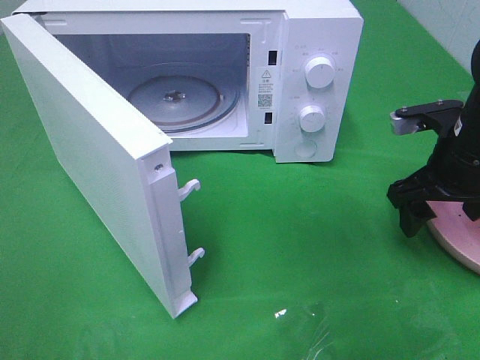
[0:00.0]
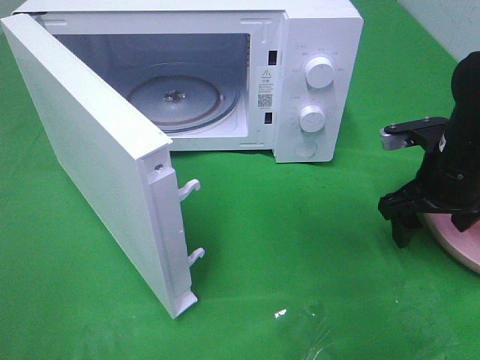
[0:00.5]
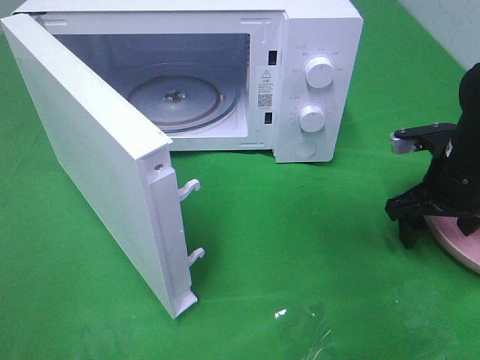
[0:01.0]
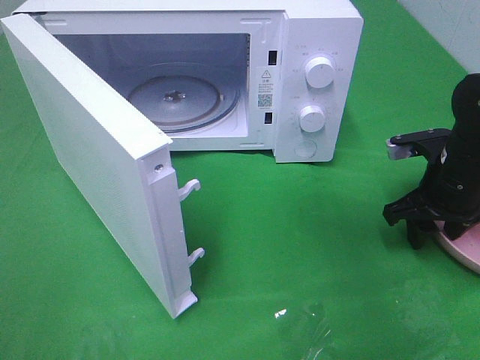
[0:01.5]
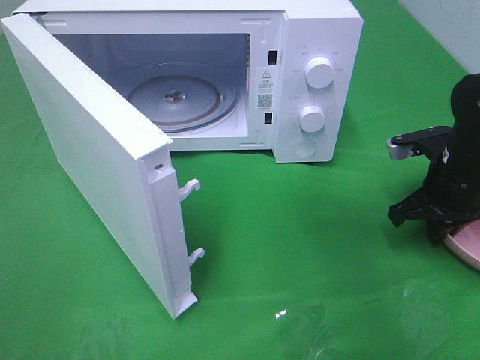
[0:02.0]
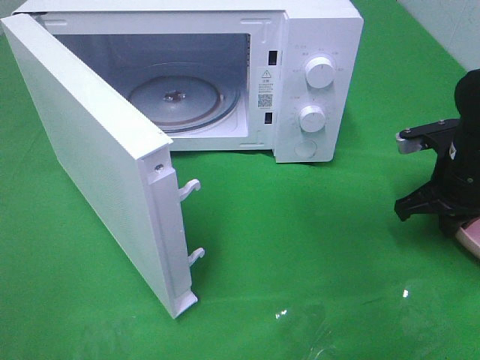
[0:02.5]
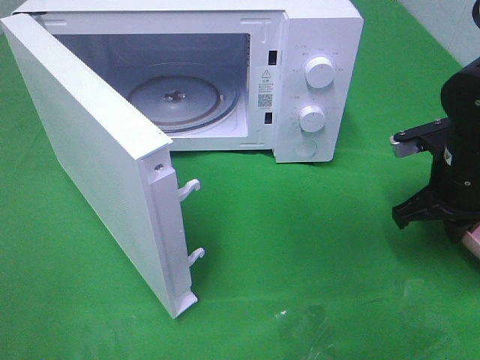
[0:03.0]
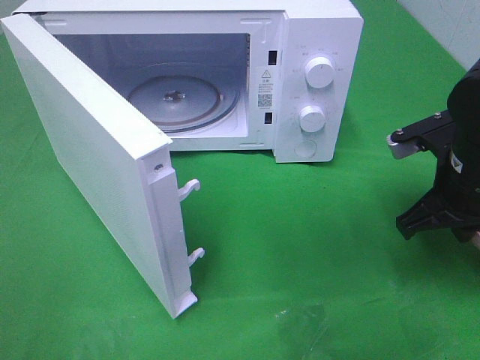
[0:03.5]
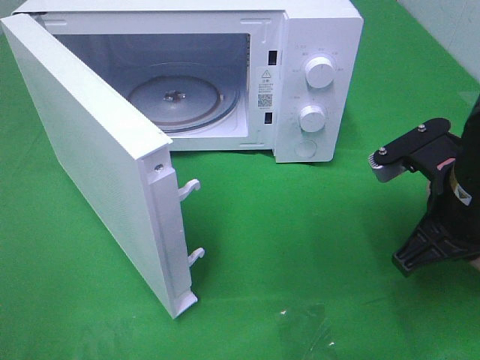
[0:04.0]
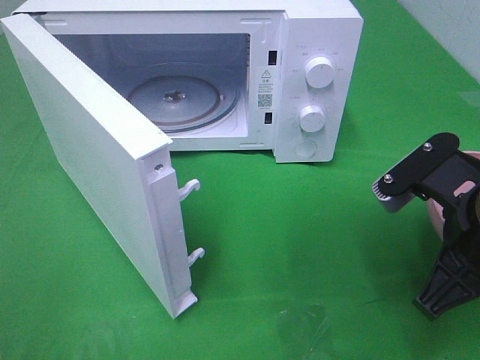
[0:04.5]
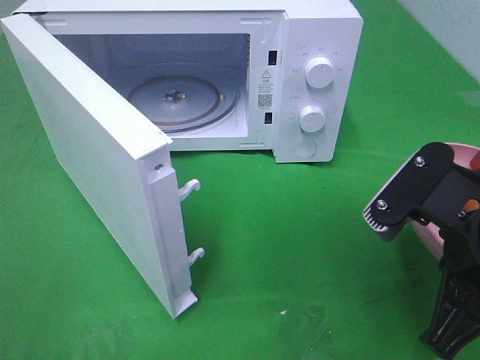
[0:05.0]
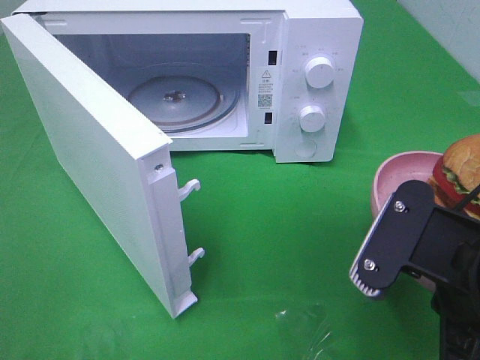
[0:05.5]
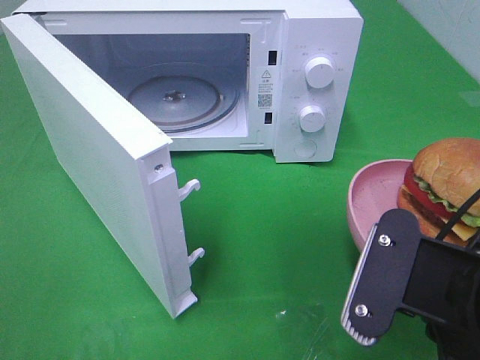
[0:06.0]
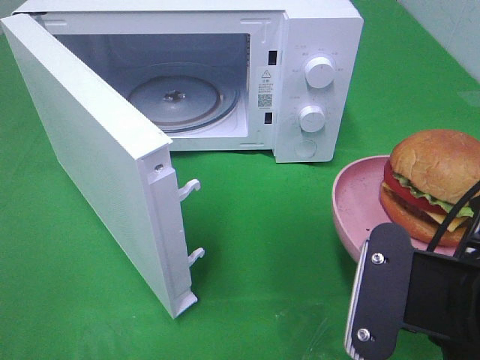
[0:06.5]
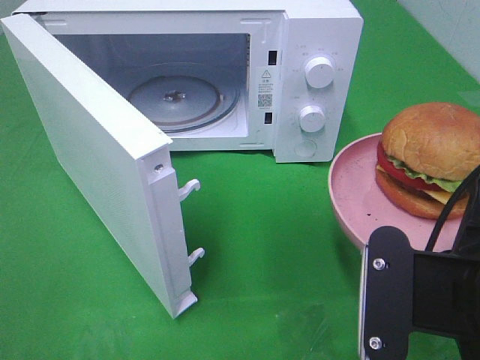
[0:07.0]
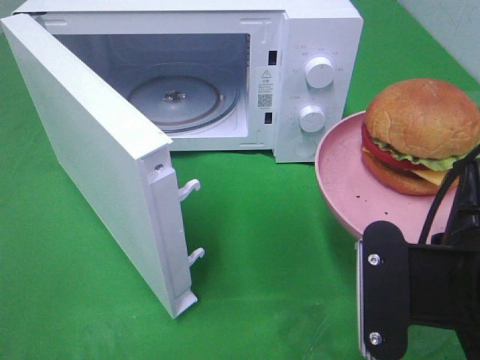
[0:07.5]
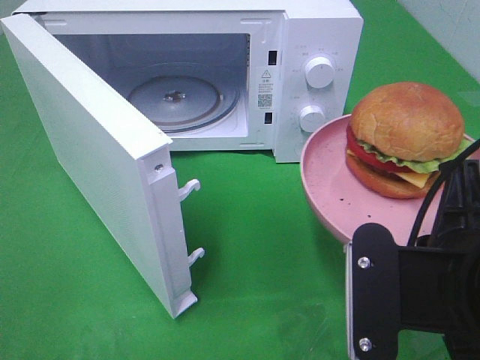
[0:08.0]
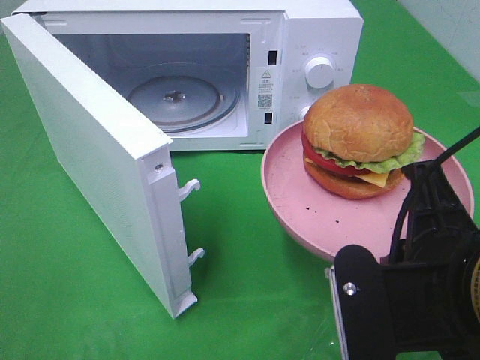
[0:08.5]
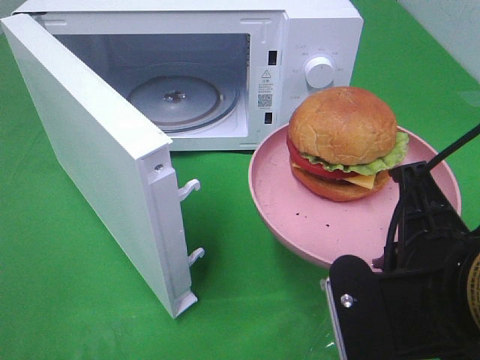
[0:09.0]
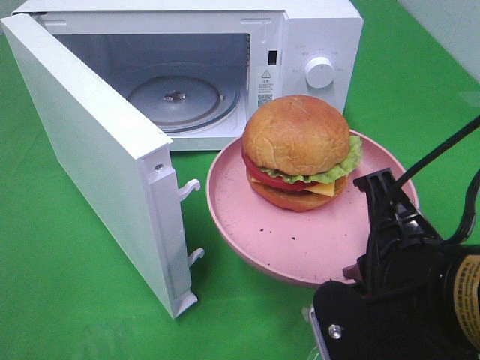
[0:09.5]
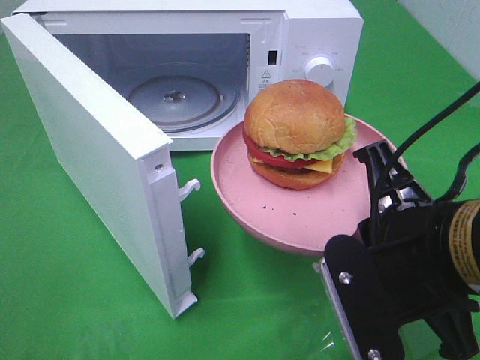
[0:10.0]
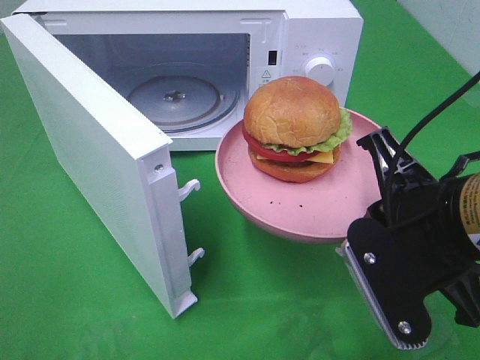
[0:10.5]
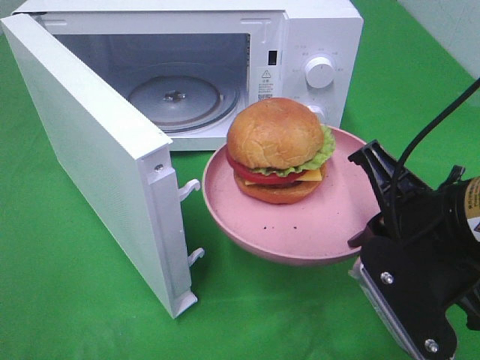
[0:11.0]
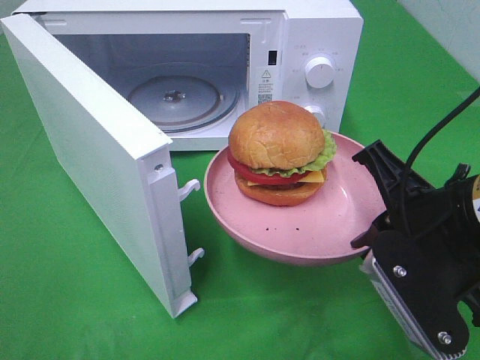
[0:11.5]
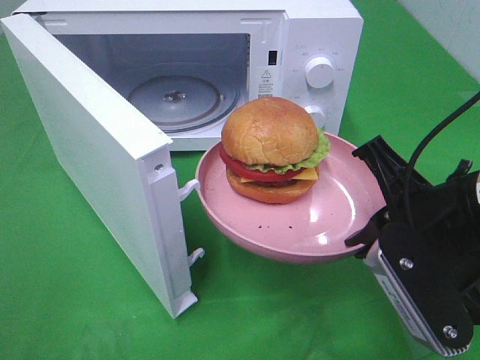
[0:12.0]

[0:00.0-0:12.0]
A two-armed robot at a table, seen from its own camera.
Task of the whole recording: Heat the burger.
Step, 0:00.0 to 0:02.0: Right hand: grab the plate with the hamburger.
0:00.0 to 0:02.0: The right gripper travels downward by about 5 cm, and closes up.
0:02.0 to 0:04.0: The right gripper travels backward, upward and to the left by approximately 15 cm.
0:04.0 to 0:06.0: The right gripper shifts about 10 cm backward.
0:10.0 to 0:12.0: The right gripper moves about 5 cm.

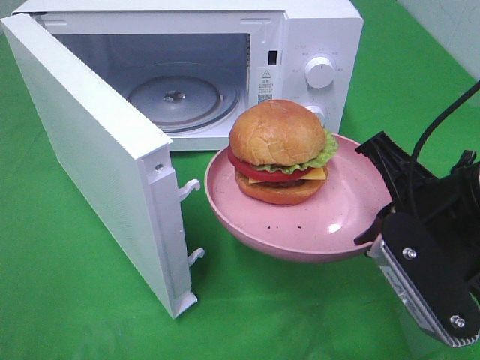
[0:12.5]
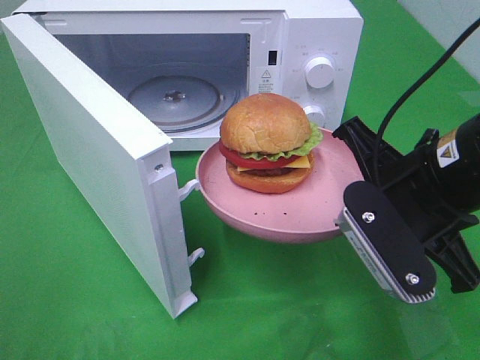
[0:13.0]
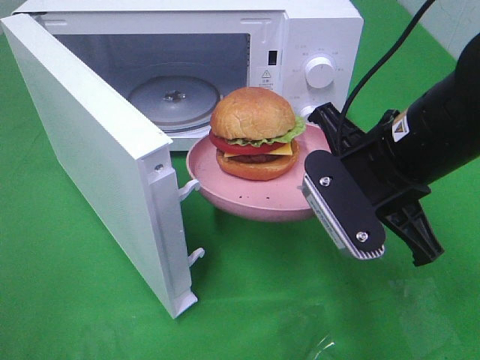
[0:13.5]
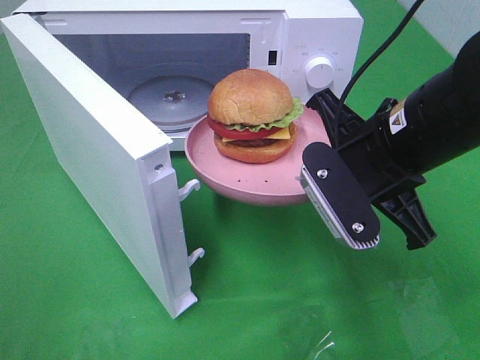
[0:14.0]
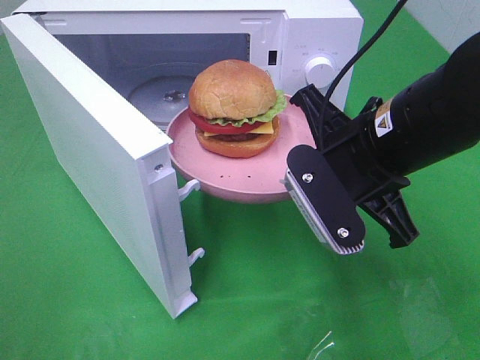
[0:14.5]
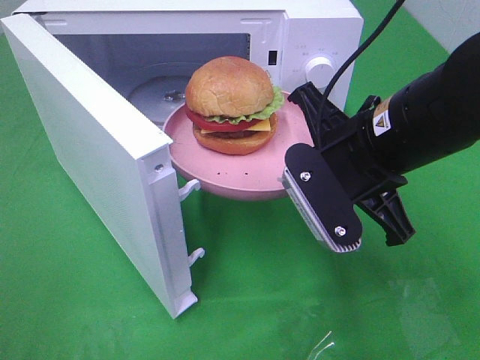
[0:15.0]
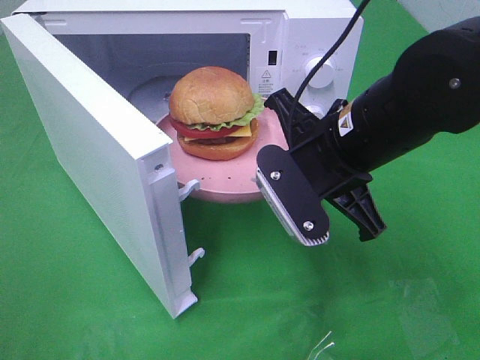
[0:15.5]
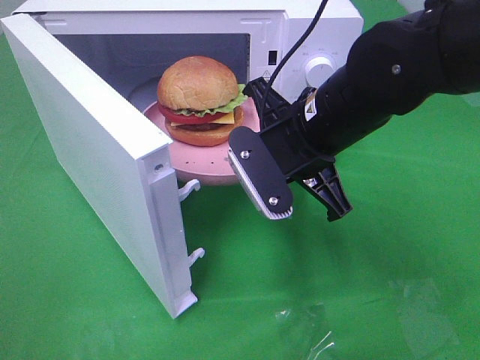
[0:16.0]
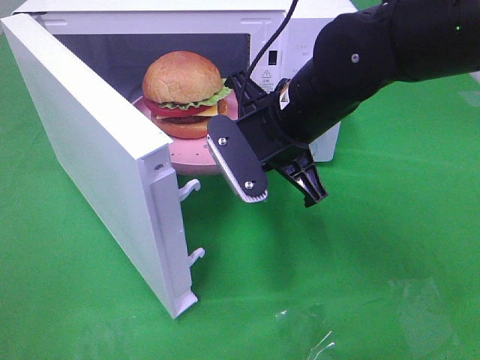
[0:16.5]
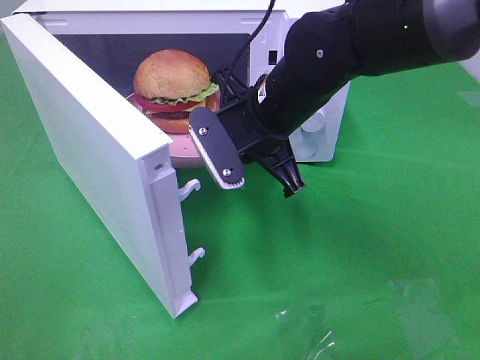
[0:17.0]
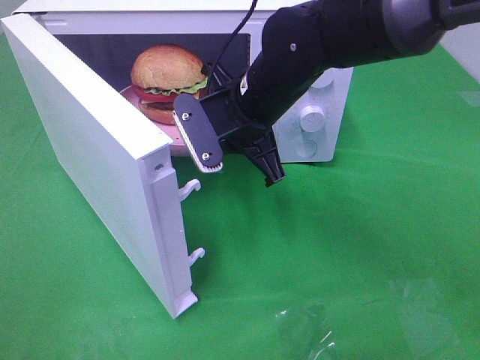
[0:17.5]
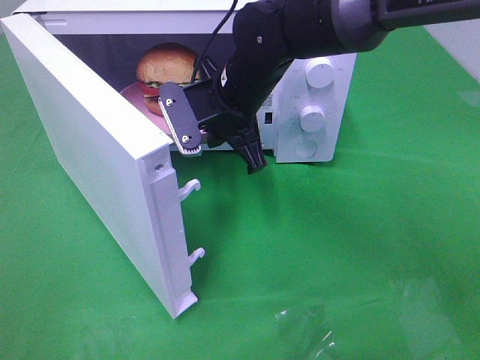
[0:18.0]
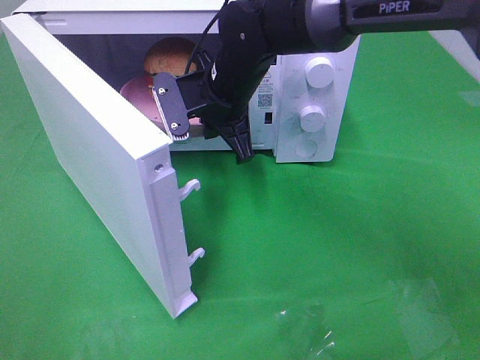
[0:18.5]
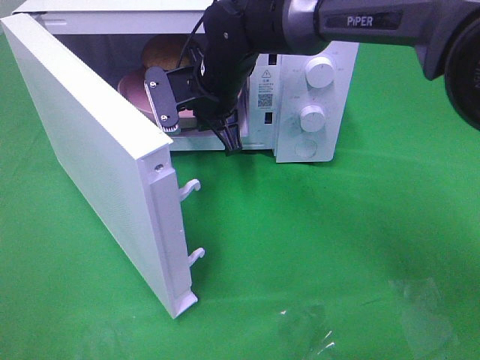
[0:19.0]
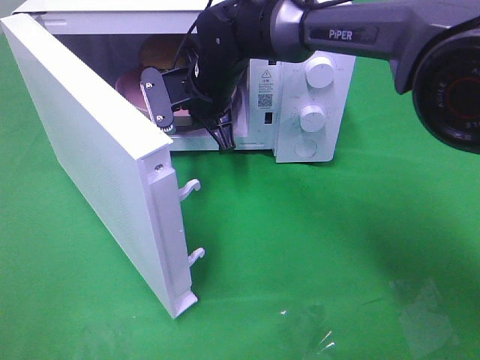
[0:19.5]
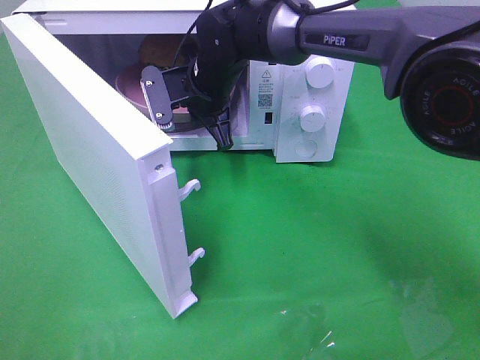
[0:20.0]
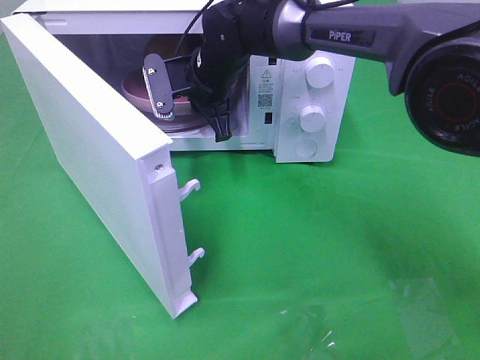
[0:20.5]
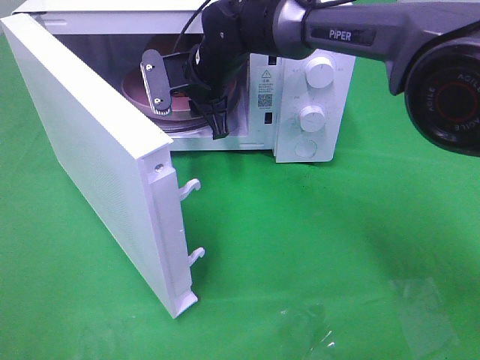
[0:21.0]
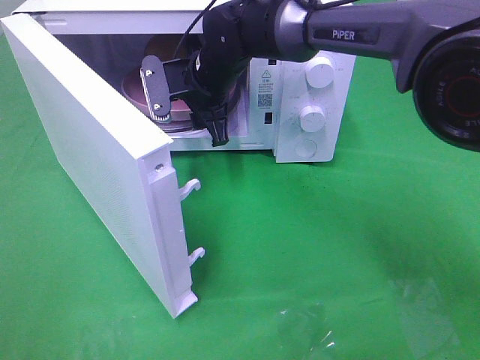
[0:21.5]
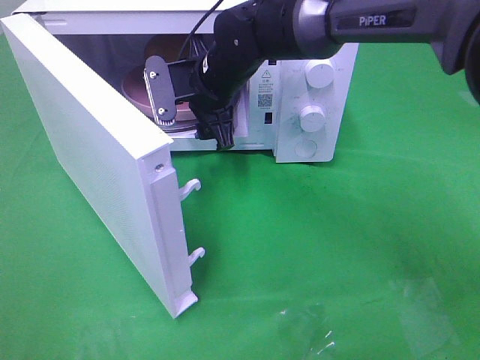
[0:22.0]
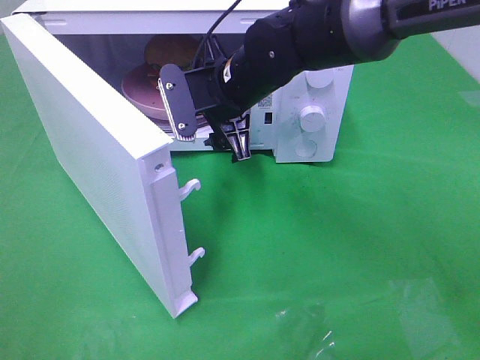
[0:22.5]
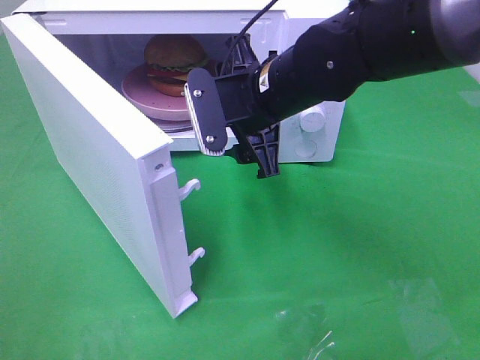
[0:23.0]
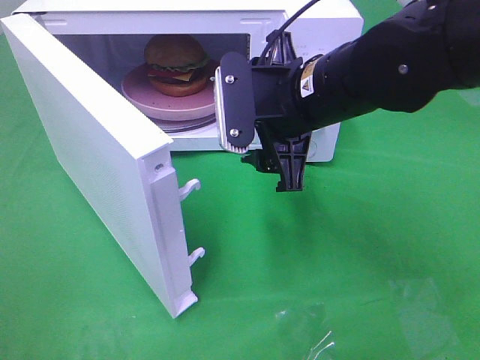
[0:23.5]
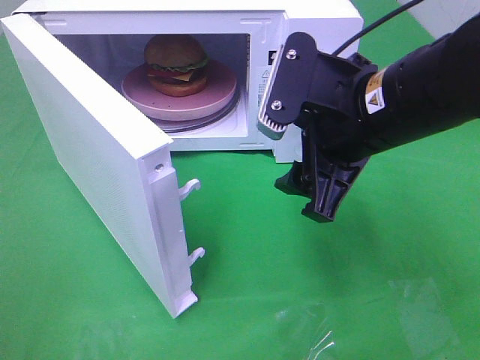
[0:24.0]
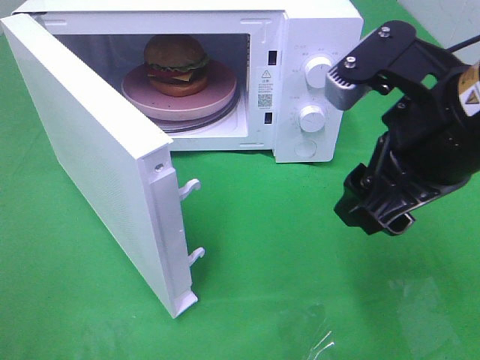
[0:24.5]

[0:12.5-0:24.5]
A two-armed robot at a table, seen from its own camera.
Task of the whole recording: Heat the burger.
Step, 0:12.5 to 0:21.5: Right hand: place the plate in the microwave.
0:12.5 to 0:14.5: The right gripper moves forward and to the left, some 10 cm.
0:14.5 to 0:16.5: The right gripper travels forward and to the left by roughly 10 cm.
0:16.5 to 0:18.5: The right gripper is displaced forward and to the left by roughly 10 cm.
0:18.5 to 0:20.5: The right gripper changes place by approximately 5 cm.
0:20.5 to 0:22.5: The right gripper shifts roughly 5 cm backward, and opens up.
0:22.5 to 0:24.5: The right gripper travels backward, to the right and upward by some 25 cm.

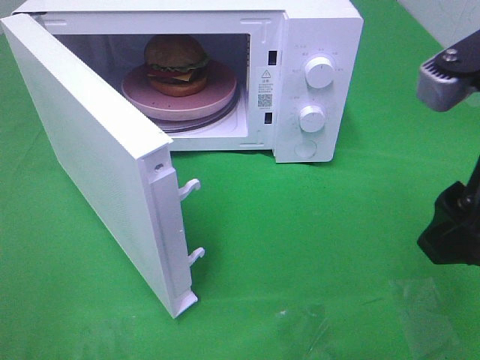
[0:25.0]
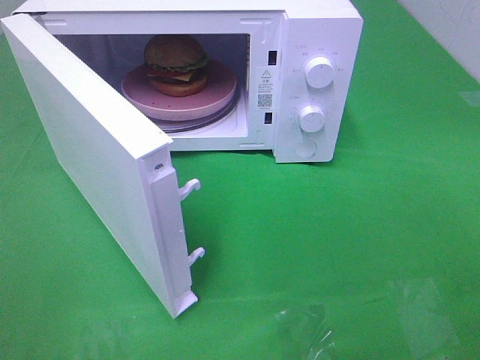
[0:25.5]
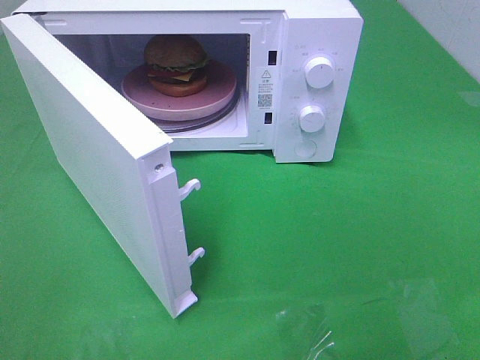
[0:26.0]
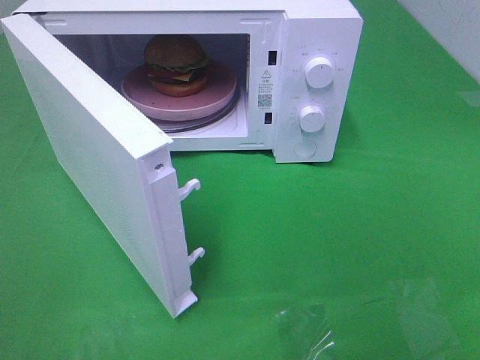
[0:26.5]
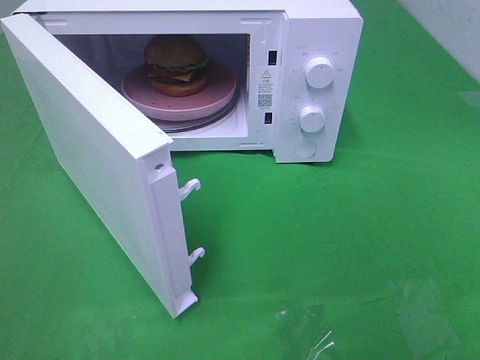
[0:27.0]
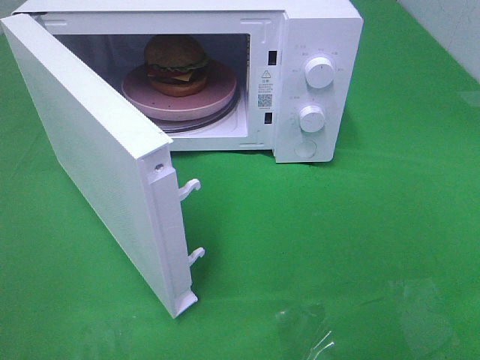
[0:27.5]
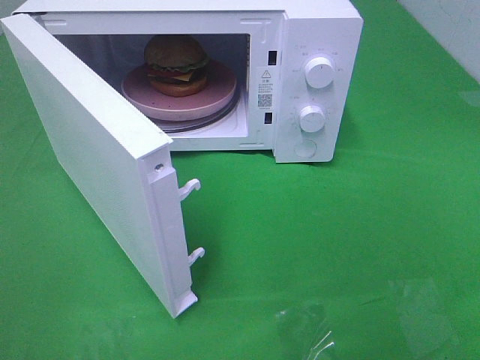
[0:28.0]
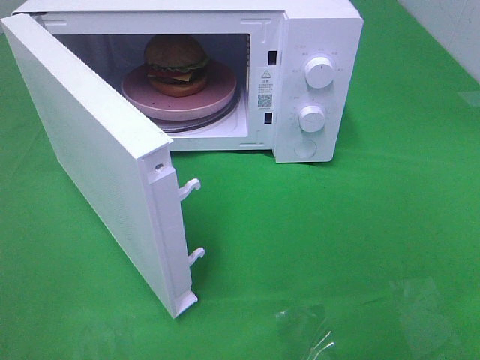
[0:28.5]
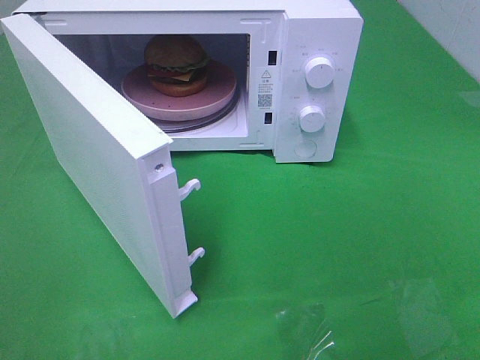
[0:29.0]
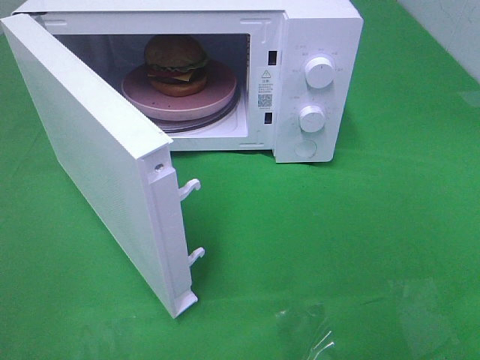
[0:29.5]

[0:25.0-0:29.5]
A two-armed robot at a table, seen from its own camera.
Task of the whole recording: Heat the burger.
0:25.0 to 0:27.0: The right gripper heads backward and to the right, covering roughly 20 cm.
0:27.0 to 0:29.5: Neither gripper changes place.
